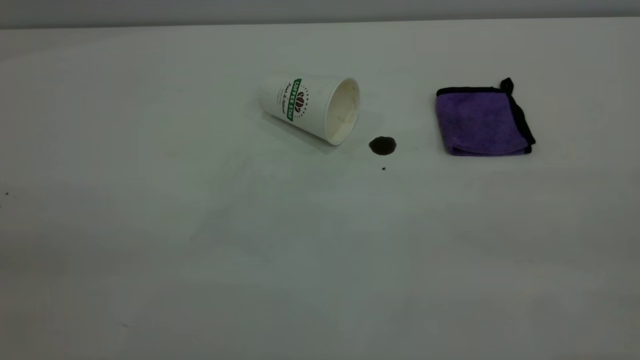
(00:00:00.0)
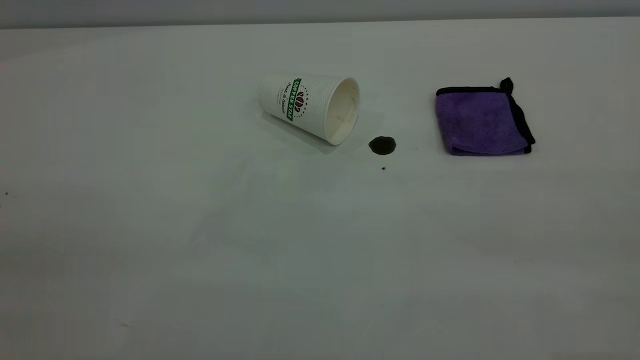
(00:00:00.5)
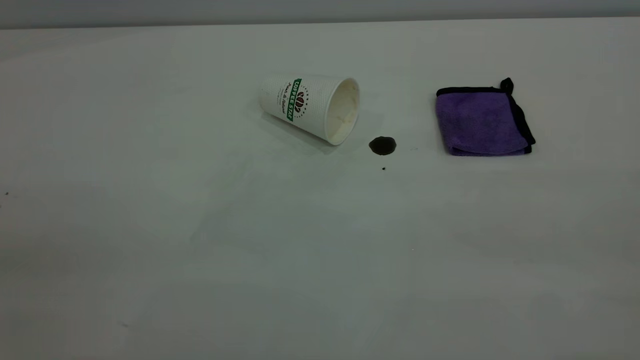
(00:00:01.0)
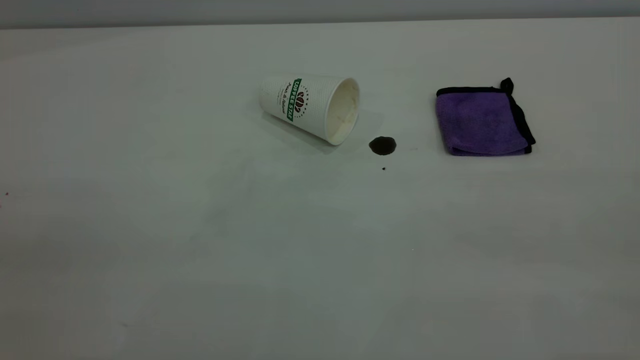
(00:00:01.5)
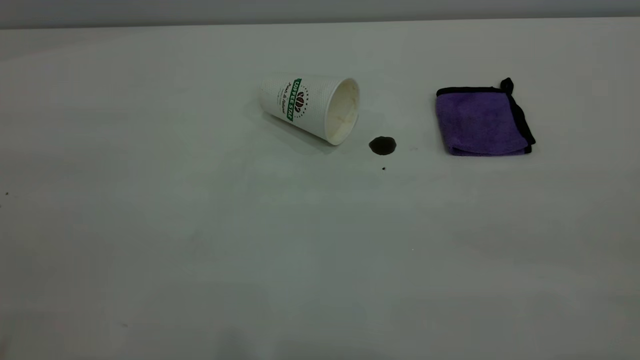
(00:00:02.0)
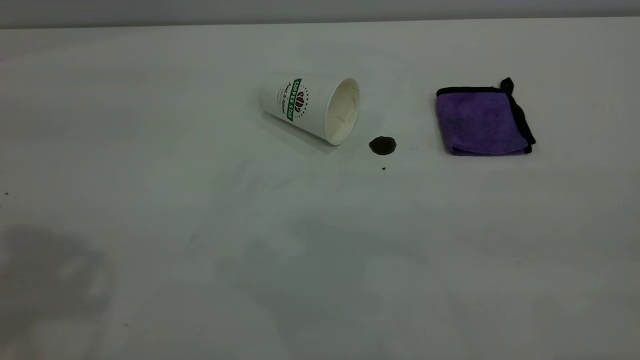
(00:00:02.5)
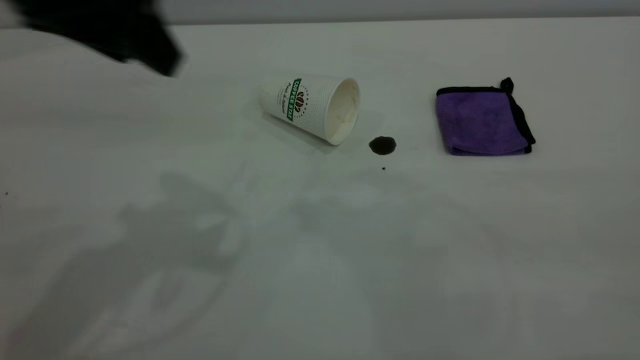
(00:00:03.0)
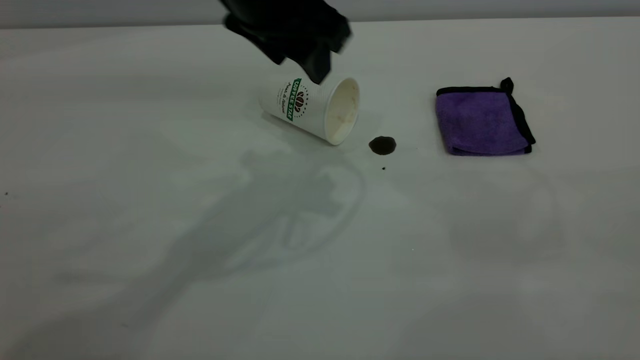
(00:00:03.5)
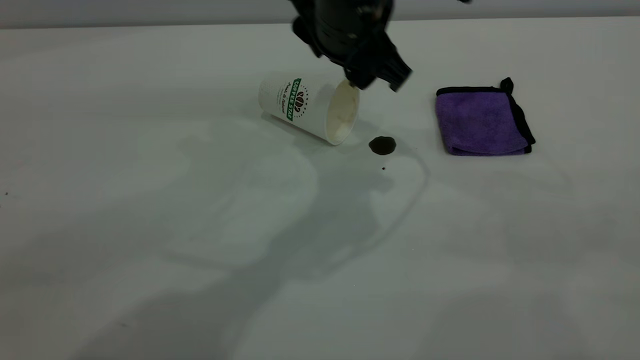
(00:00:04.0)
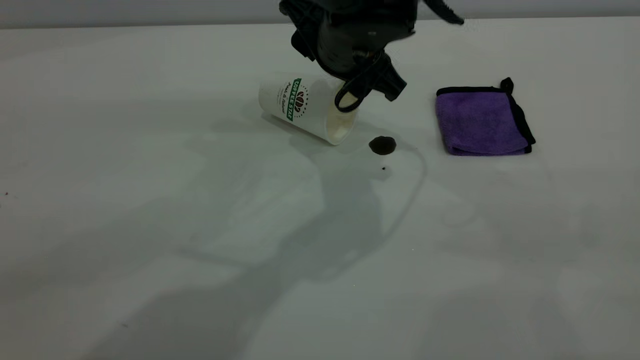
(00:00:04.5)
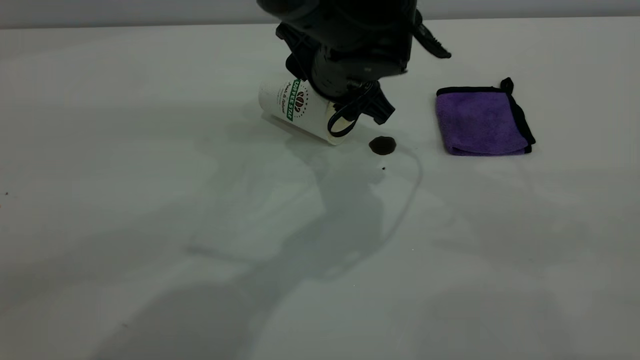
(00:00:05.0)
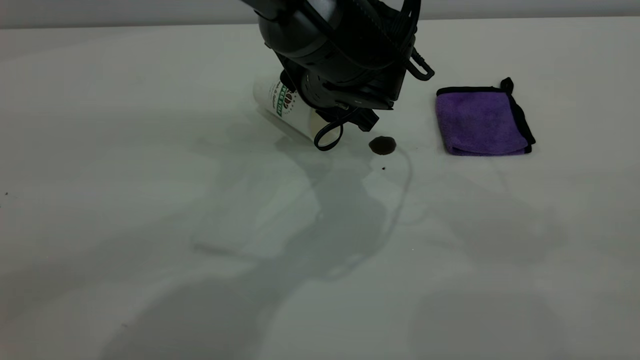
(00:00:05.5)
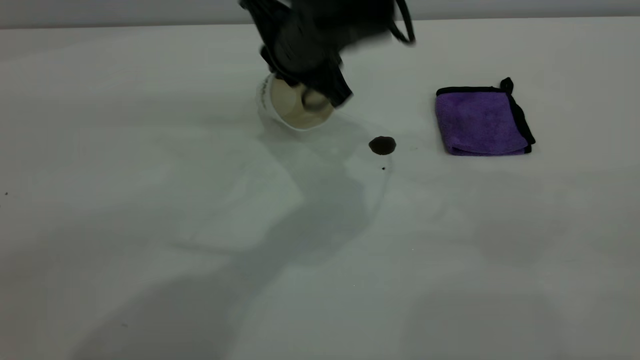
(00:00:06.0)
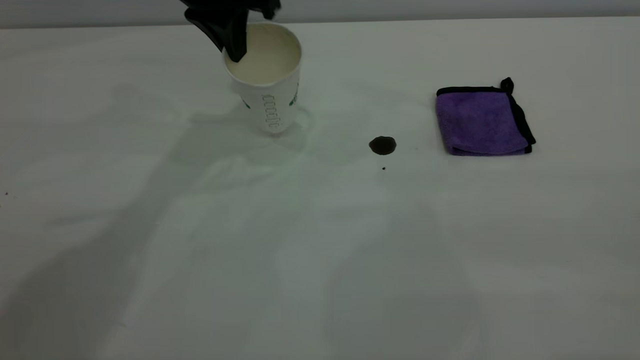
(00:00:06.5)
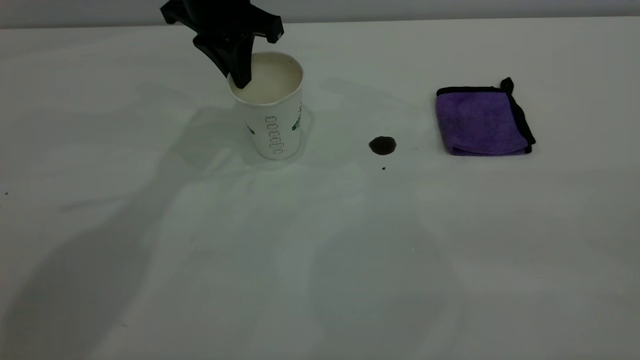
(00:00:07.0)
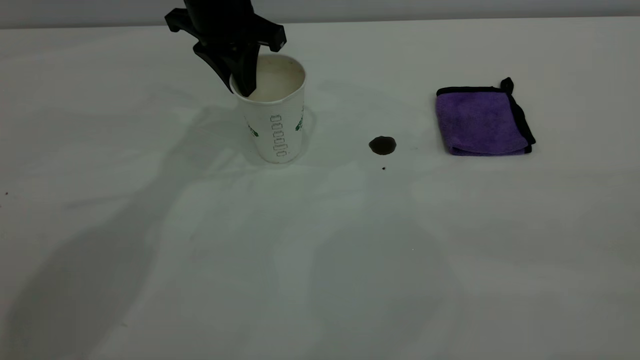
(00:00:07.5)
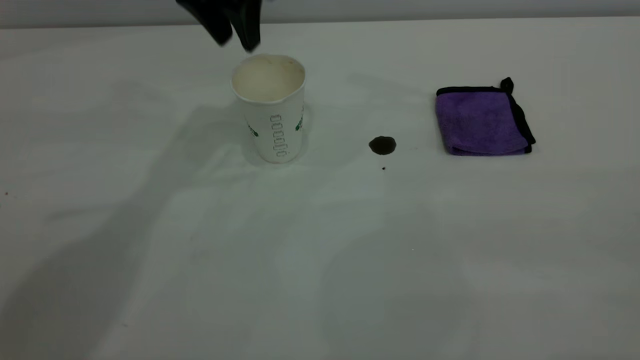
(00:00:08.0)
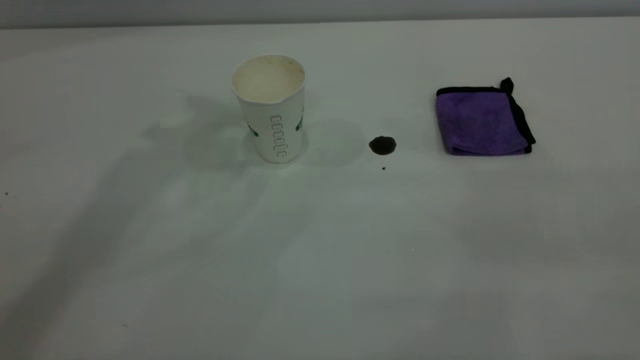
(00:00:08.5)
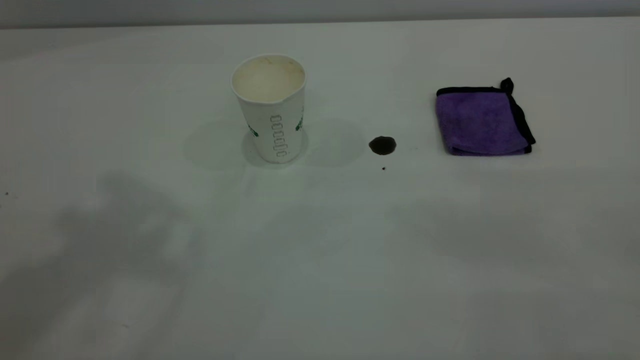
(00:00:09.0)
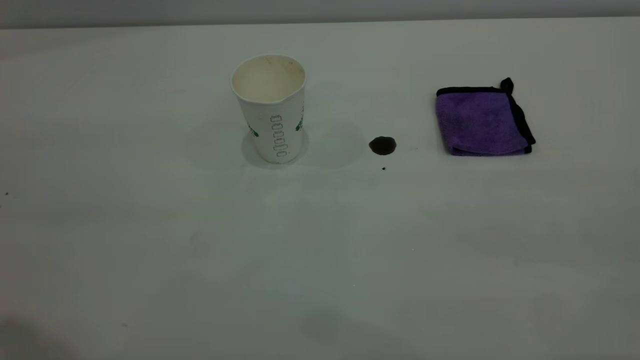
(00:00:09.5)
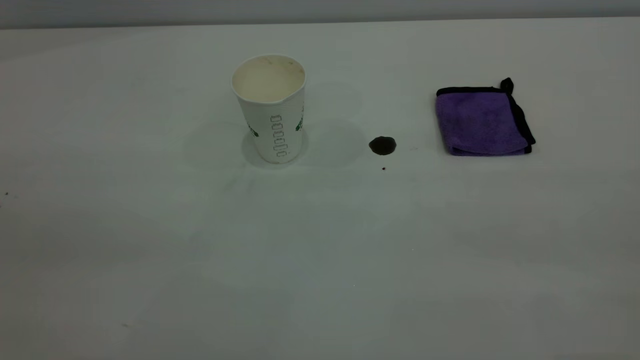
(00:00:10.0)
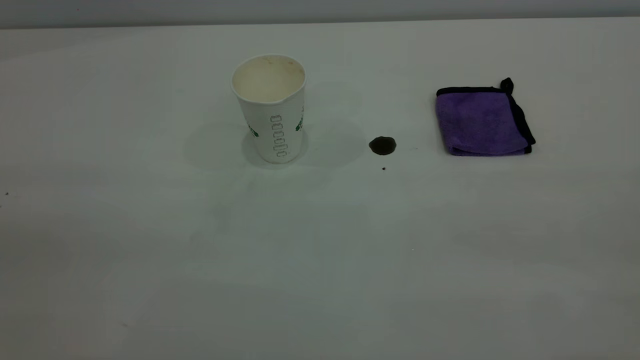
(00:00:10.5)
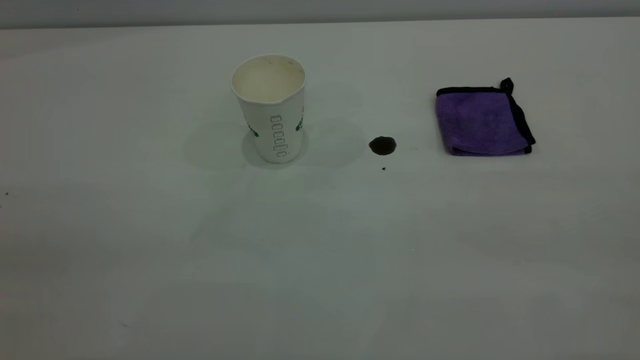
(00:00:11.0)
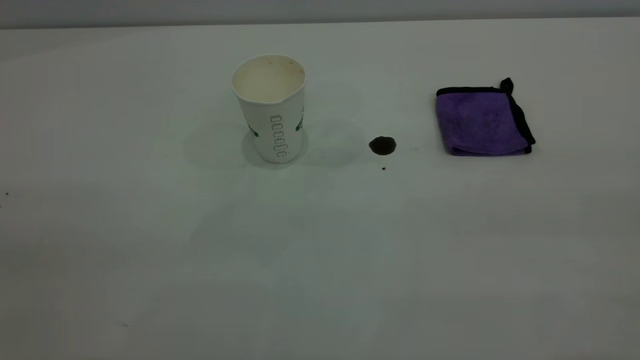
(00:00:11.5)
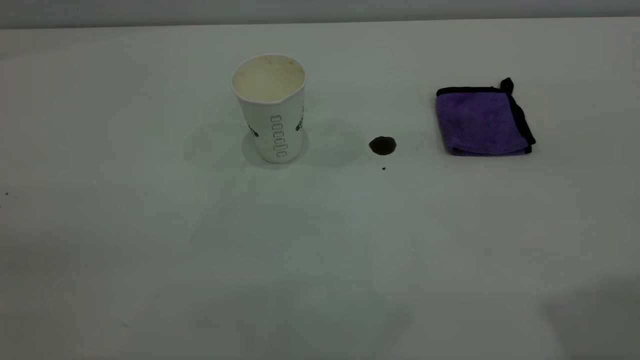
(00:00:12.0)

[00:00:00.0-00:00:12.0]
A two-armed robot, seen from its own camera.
Task of the whole recording: the left gripper pick up the fallen cup and place it upright, the right gripper grasp the purple rag and wipe the coffee stain on the table, the right gripper put the purple rag back in its original position.
Step, 00:00:00.0 to 00:00:07.5: Stand the paper cup upright.
00:00:02.0 to 00:00:04.0: The left gripper shifts some 50 cm to the right, forward and downward.
00:00:04.0 to 00:00:06.0: The left gripper travels downward and back again, approximately 10 cm each way, and closes.
00:00:06.0 to 00:00:08.0: The left gripper shifts roughly 15 cm to the left, upward and forward, and opens its fingers.
00:00:08.0 to 00:00:10.0: The left gripper shifts some 40 cm backward.

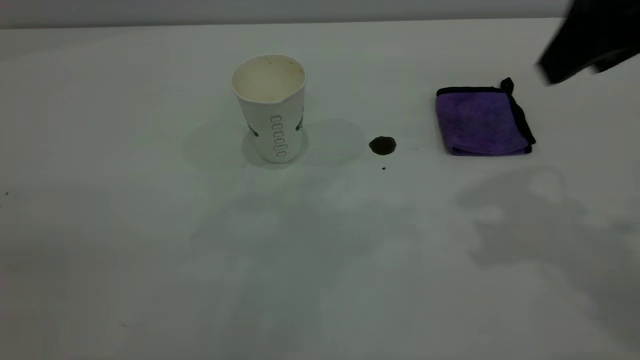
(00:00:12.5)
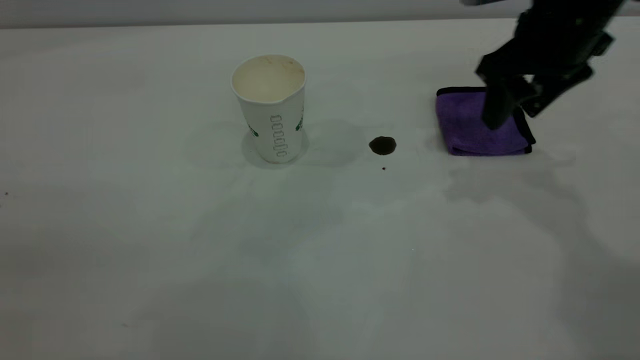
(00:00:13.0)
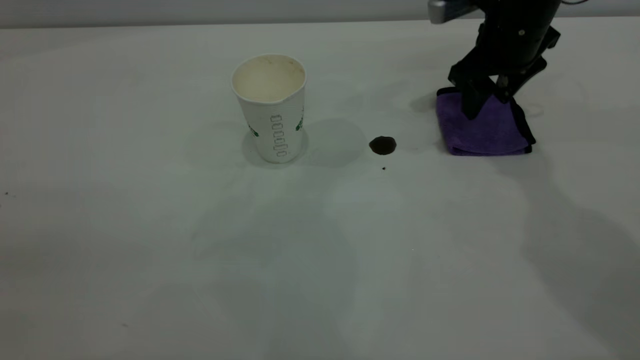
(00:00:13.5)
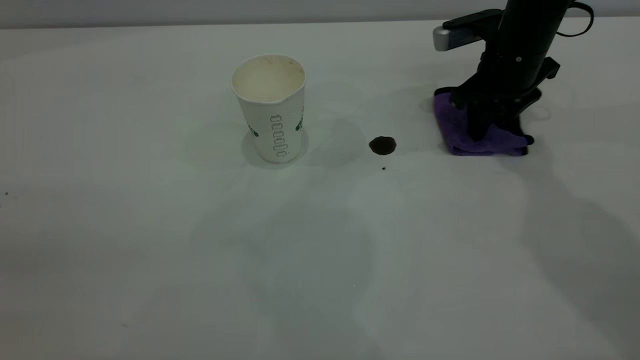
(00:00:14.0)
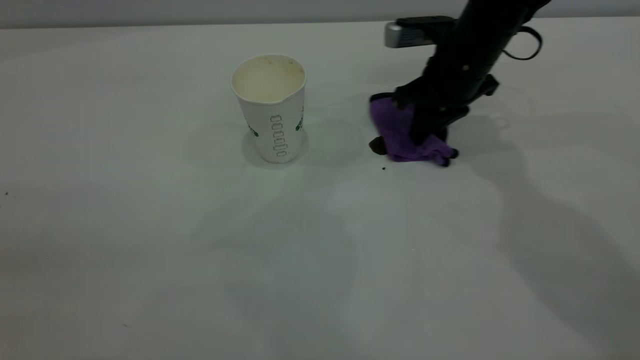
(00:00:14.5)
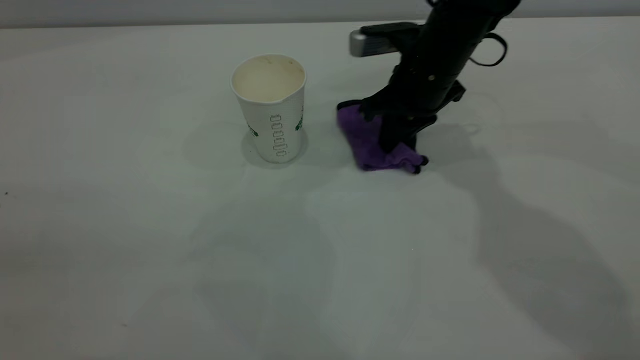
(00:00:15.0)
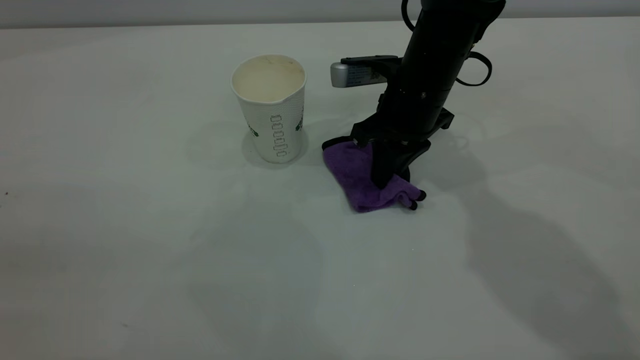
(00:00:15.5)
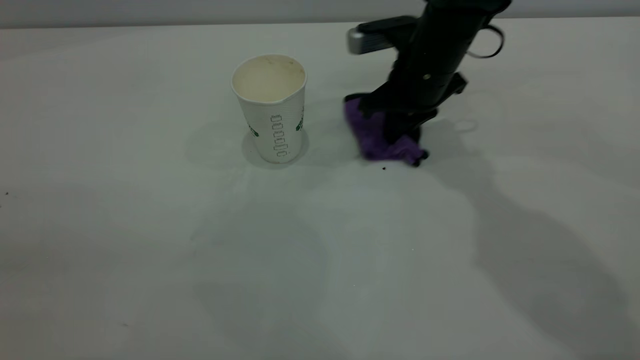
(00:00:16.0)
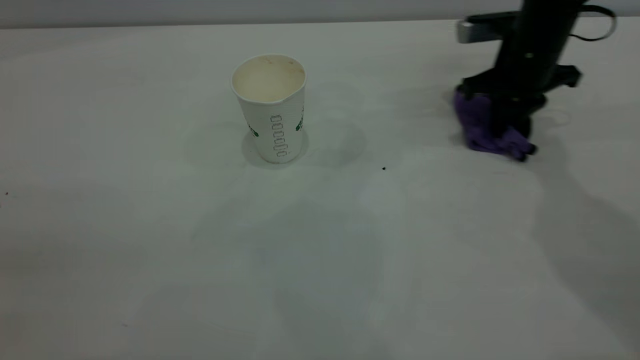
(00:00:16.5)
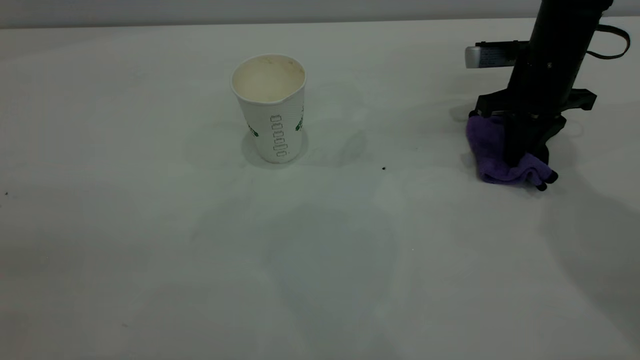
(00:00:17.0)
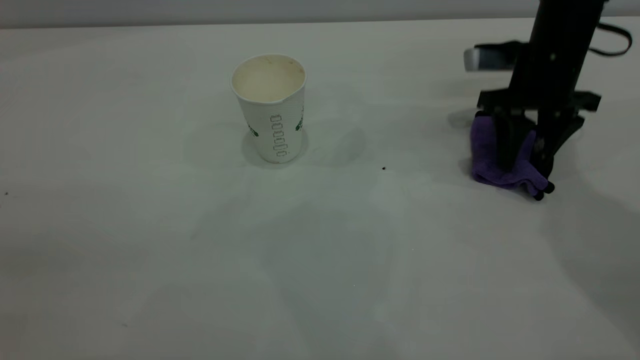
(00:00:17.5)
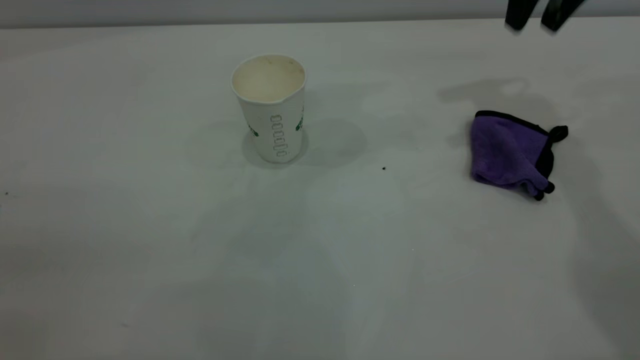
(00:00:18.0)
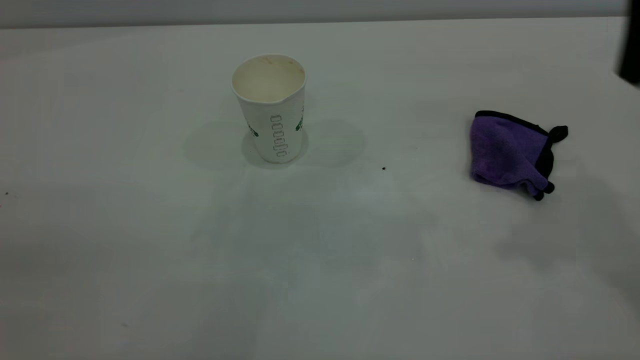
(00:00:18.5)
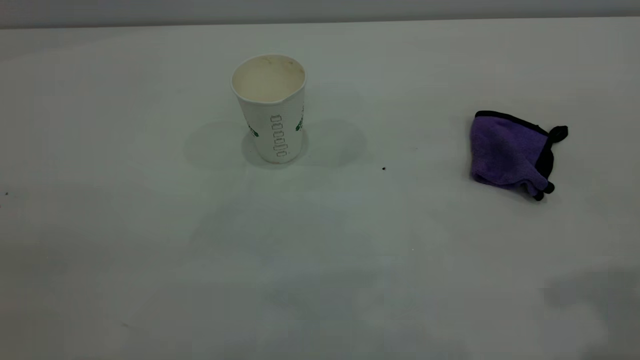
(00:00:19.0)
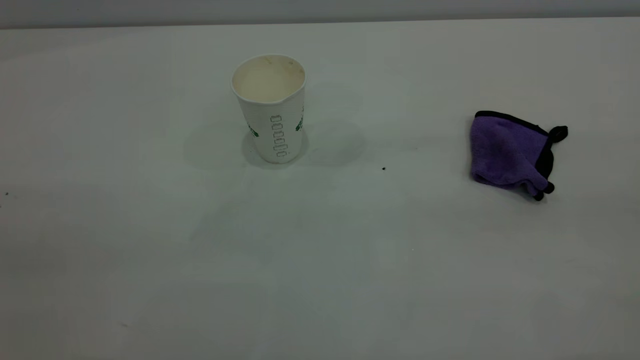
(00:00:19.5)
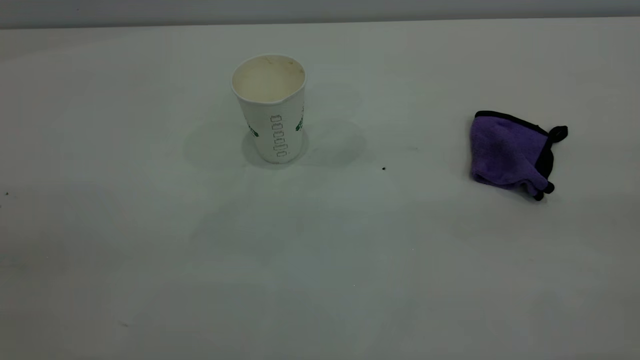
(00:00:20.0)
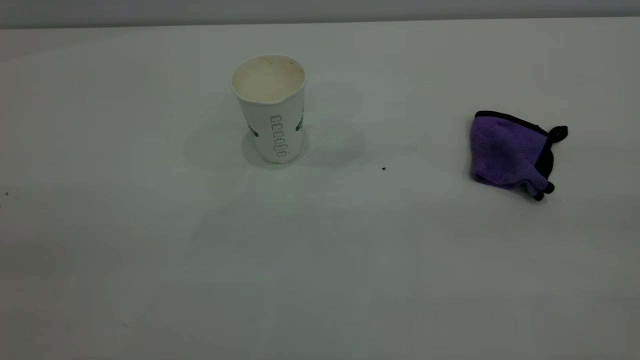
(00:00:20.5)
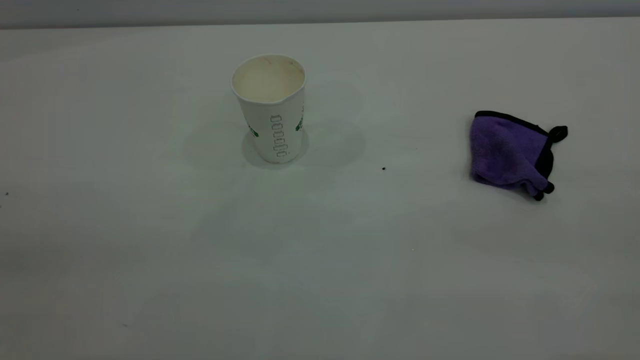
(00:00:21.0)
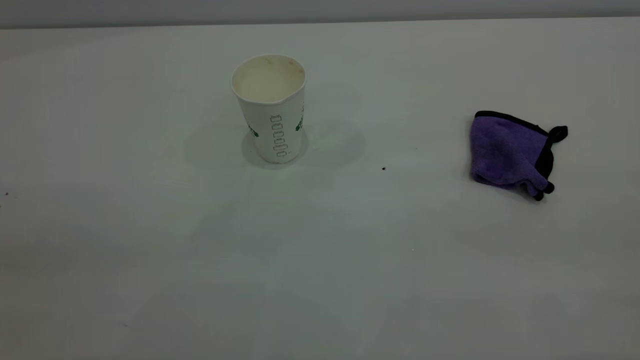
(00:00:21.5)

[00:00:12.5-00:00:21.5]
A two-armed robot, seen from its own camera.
Task of the whole recording: the left gripper pick up the fallen cup and place it upright, the right gripper grasp the purple rag and wipe the coffee stain on the table, the right gripper put the purple rag back in its original position.
Step, 00:00:12.5 to 00:00:17.5: Wipe the stains off the table with a rag.
00:00:12.5 to 00:00:14.5: The right gripper travels downward, forward and to the left by some 25 cm, and closes up.
00:00:14.5 to 00:00:17.0: The right gripper shifts roughly 10 cm to the right.
00:00:17.0 to 00:00:19.5: The right gripper goes some 50 cm backward and upward, and opens up.
